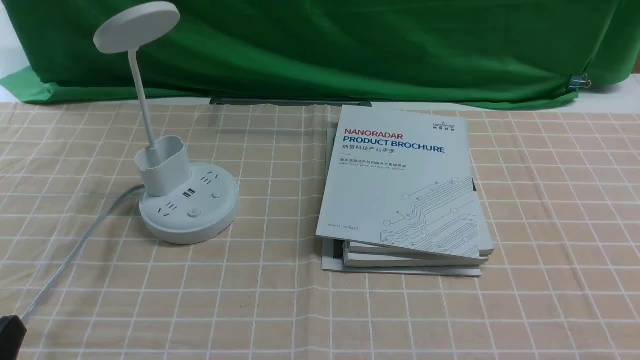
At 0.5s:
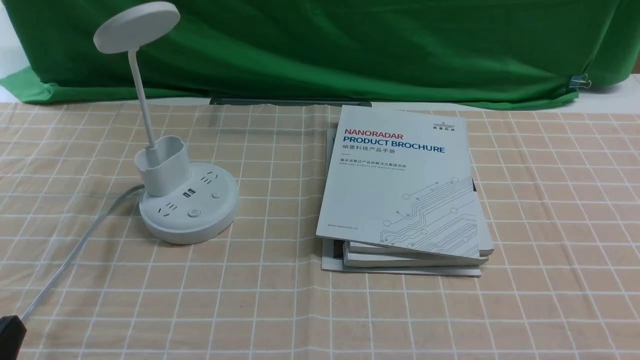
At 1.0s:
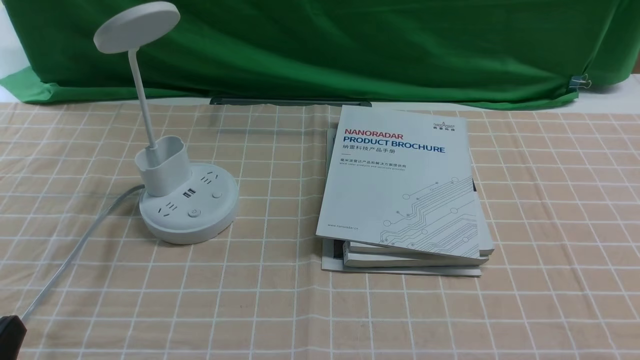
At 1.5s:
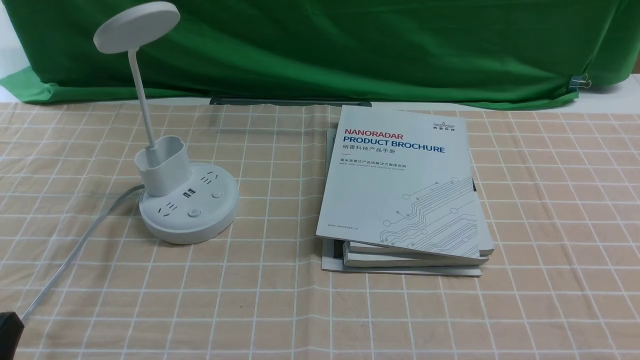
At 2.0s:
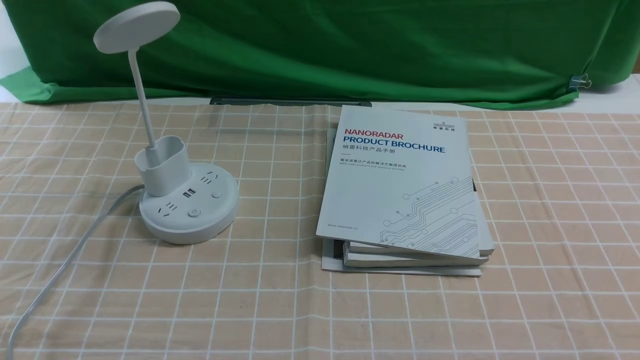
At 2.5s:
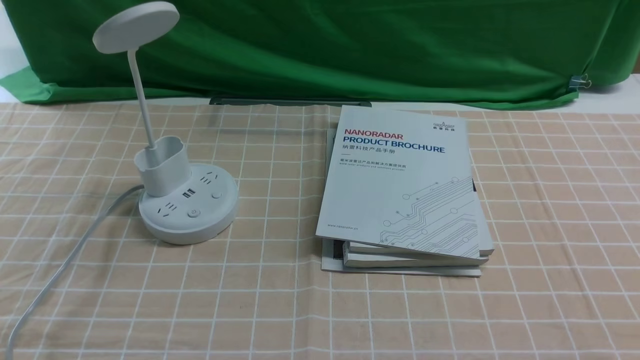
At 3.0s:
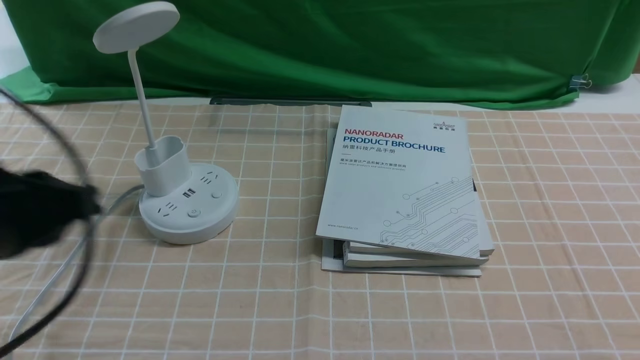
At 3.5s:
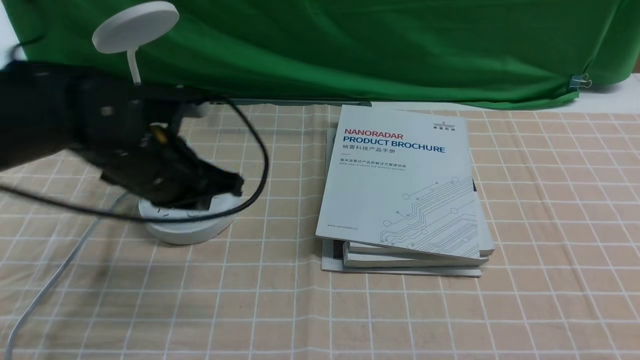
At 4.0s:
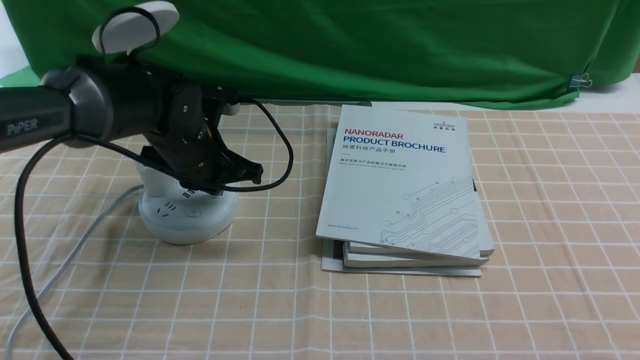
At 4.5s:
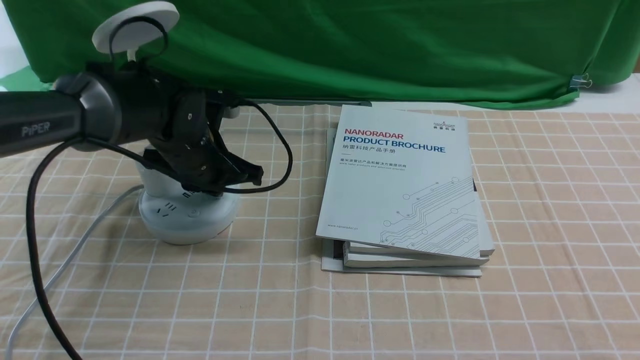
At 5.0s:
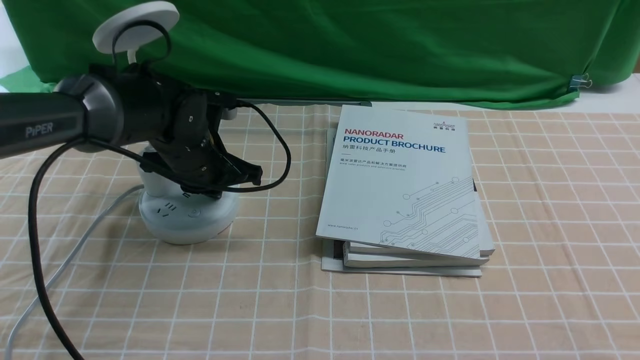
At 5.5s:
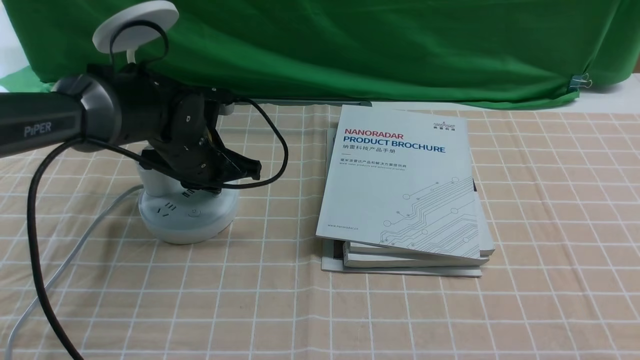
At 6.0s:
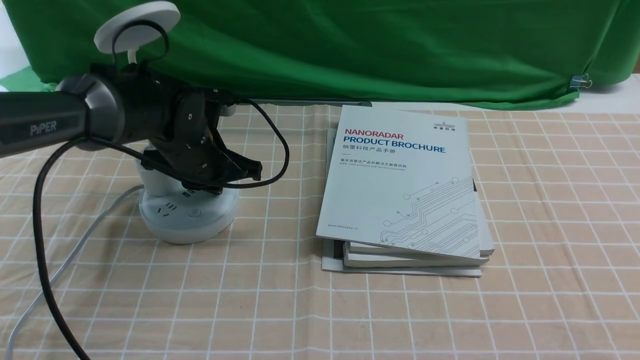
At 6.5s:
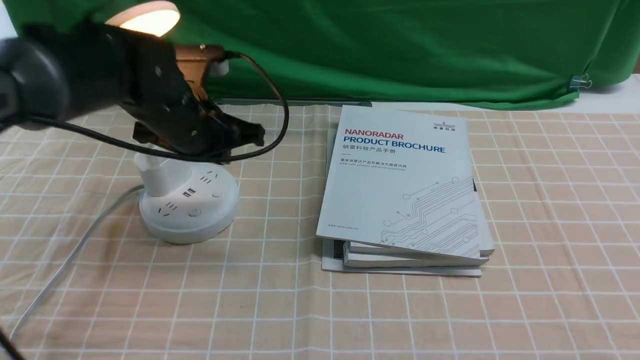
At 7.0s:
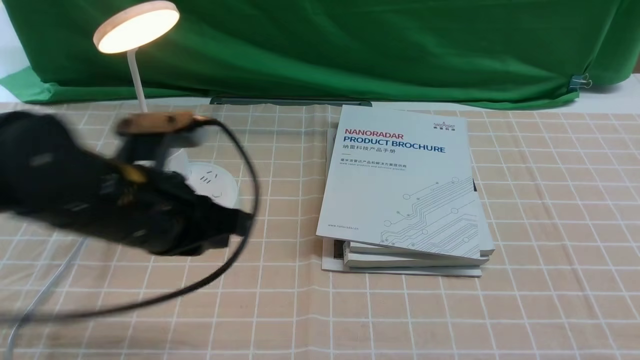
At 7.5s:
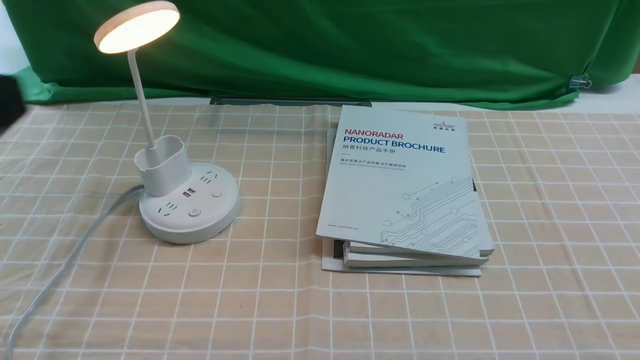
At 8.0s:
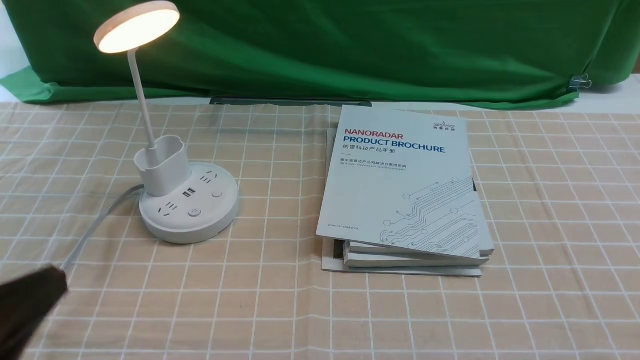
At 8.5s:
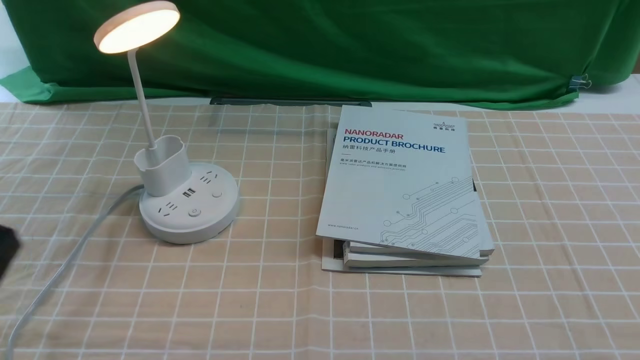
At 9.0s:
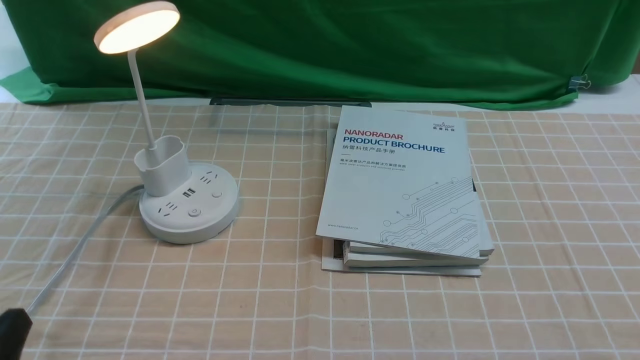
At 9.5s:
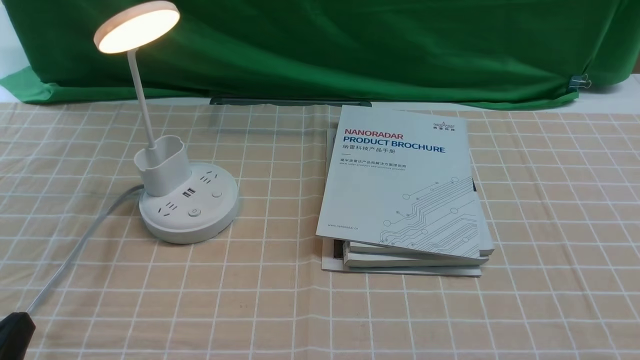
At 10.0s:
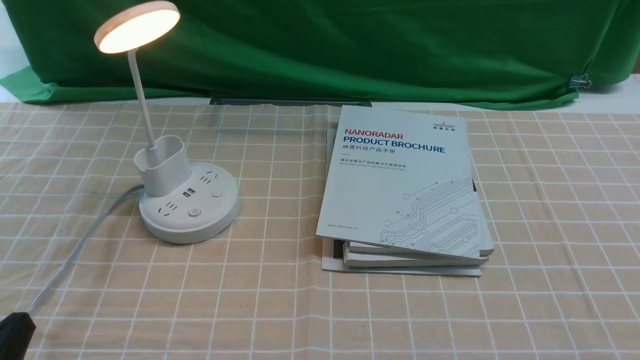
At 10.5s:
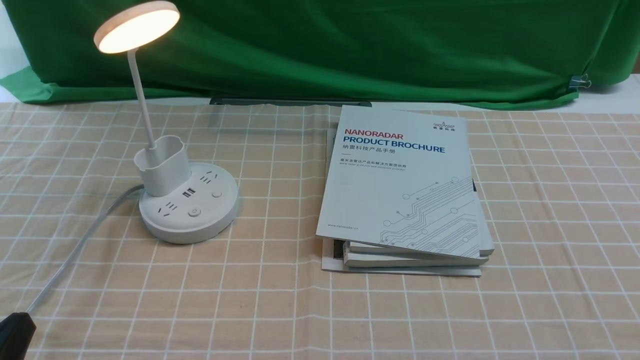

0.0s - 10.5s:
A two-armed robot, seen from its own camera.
Step, 0.0s - 6.5s: use the left arm to press the button switch on the lamp holder.
2.0s - 4.0s: The left gripper travels forward by about 35 cm, and closes up.
4.0s - 6.5s: There are only small adjustments of the grippers.
6.5s - 8.5s: The left gripper is displaced backward by about 30 cm, and opens.
8.5s - 10.5s: The left gripper is displaced downward by about 5 cm.

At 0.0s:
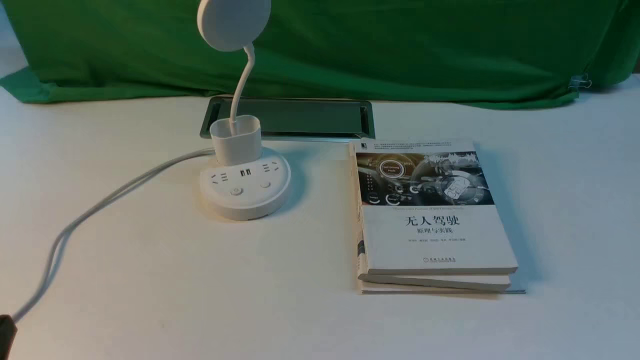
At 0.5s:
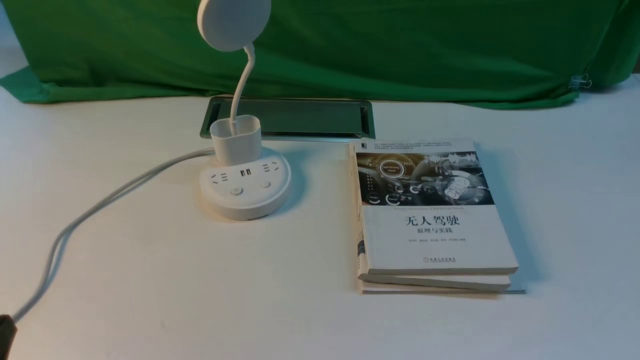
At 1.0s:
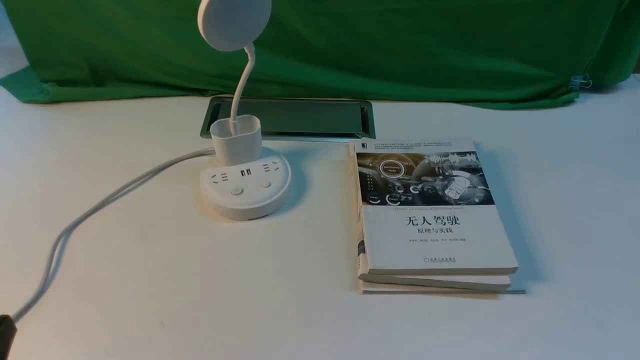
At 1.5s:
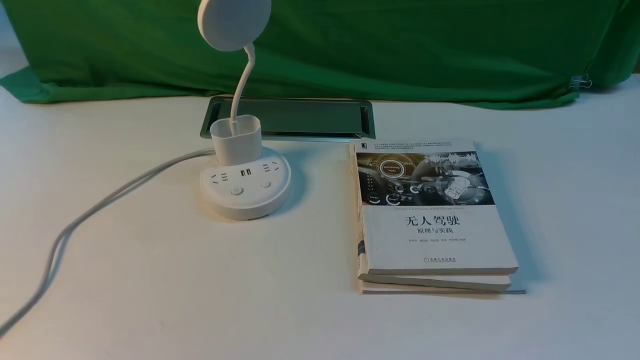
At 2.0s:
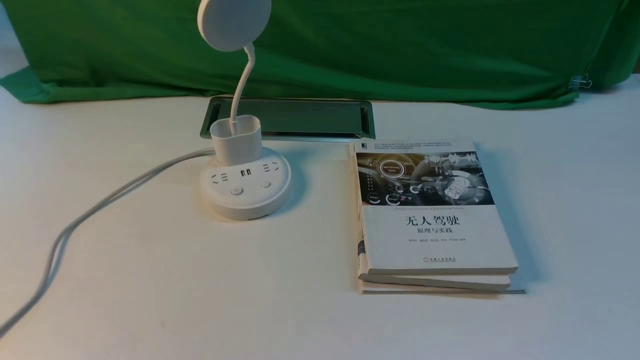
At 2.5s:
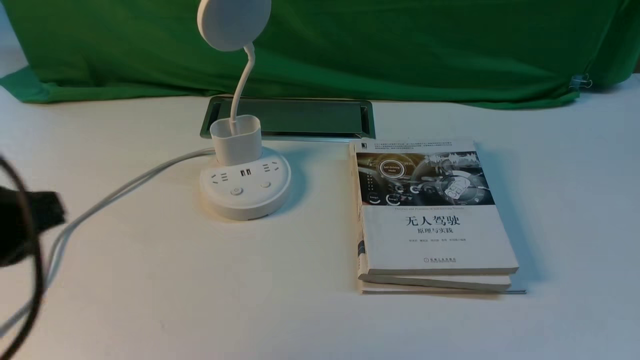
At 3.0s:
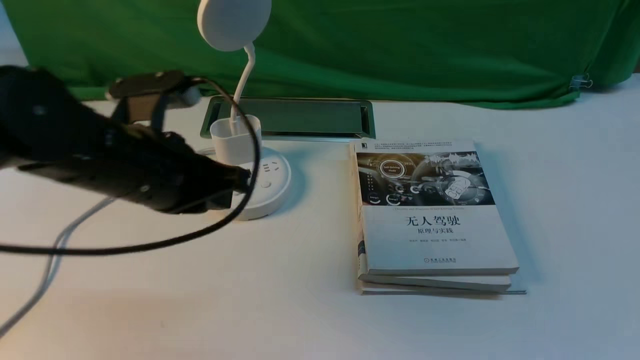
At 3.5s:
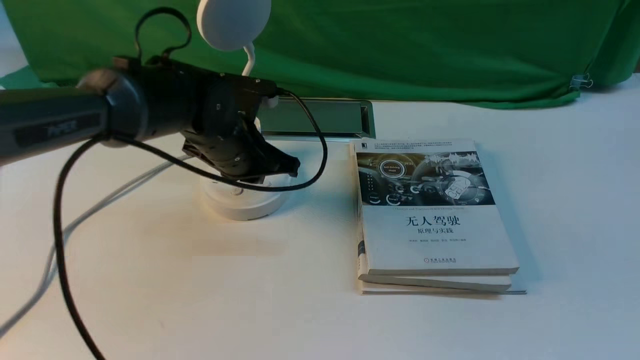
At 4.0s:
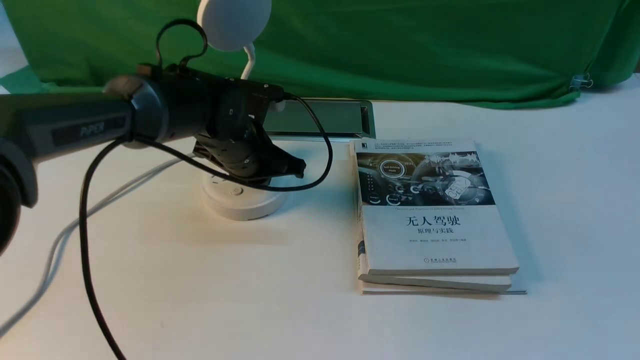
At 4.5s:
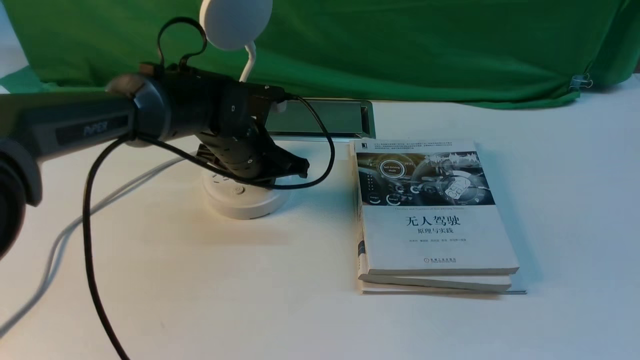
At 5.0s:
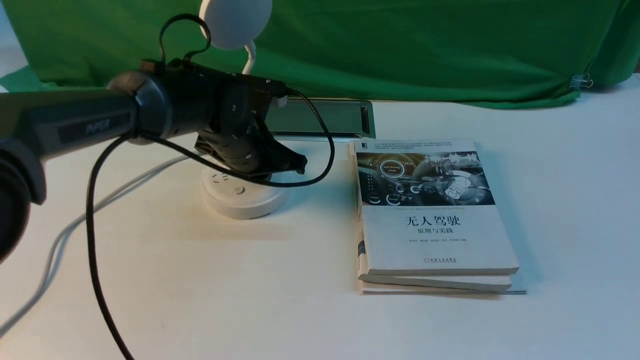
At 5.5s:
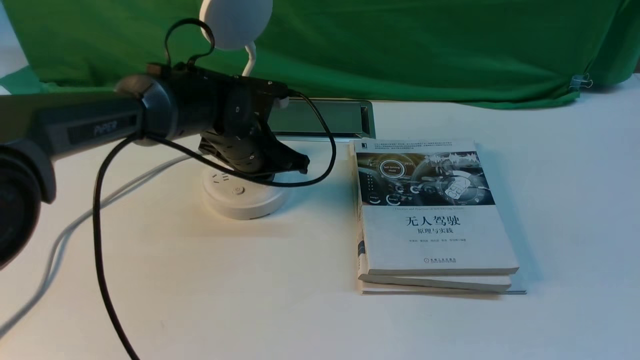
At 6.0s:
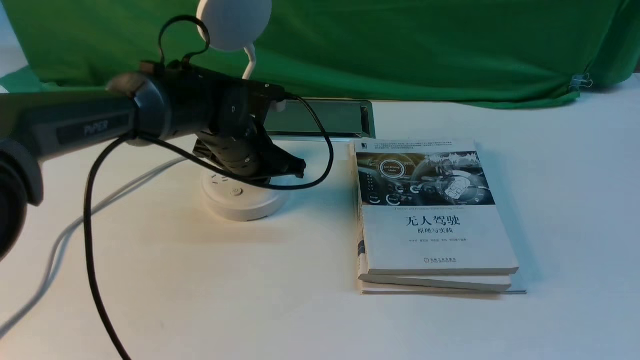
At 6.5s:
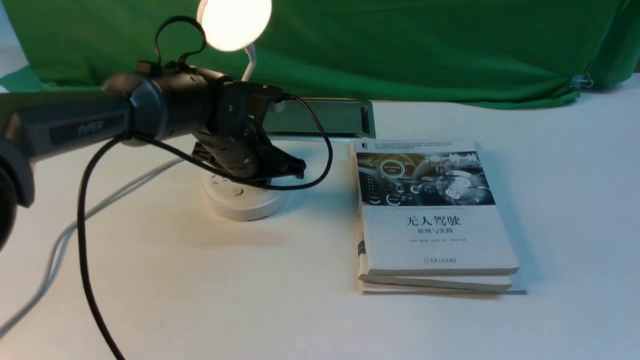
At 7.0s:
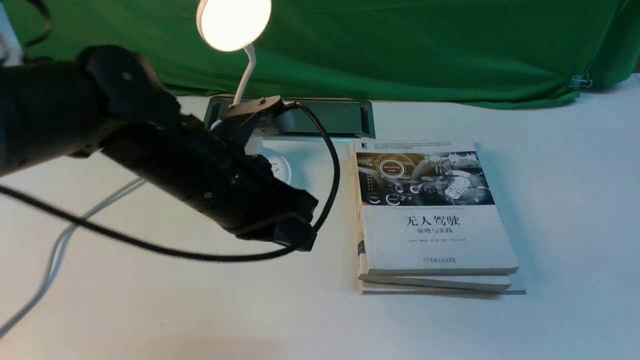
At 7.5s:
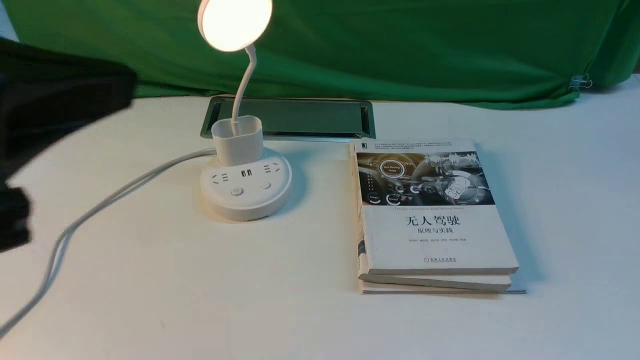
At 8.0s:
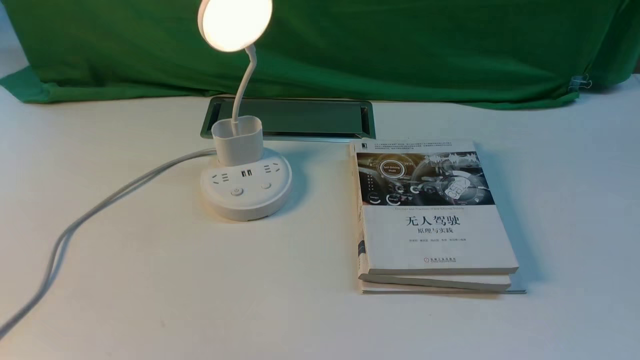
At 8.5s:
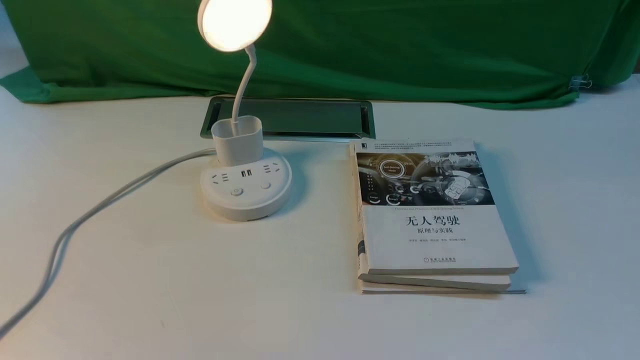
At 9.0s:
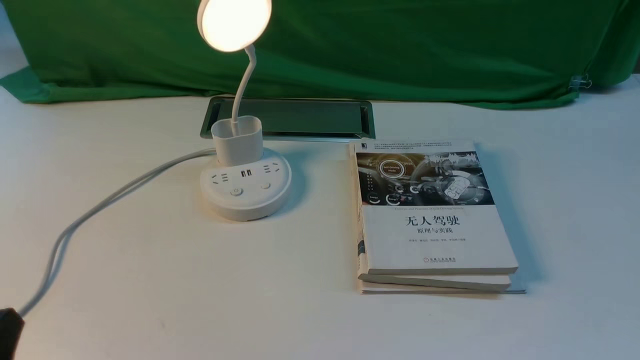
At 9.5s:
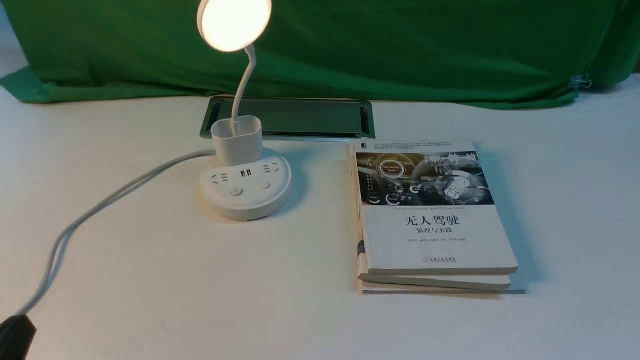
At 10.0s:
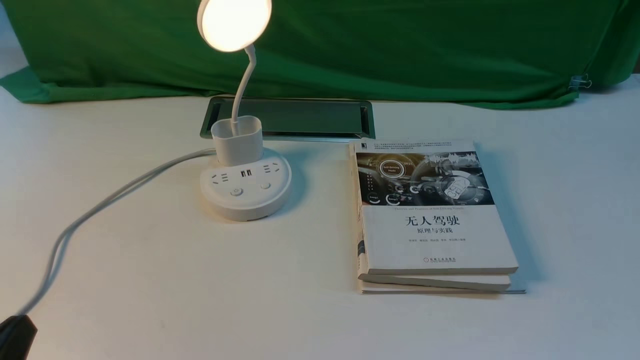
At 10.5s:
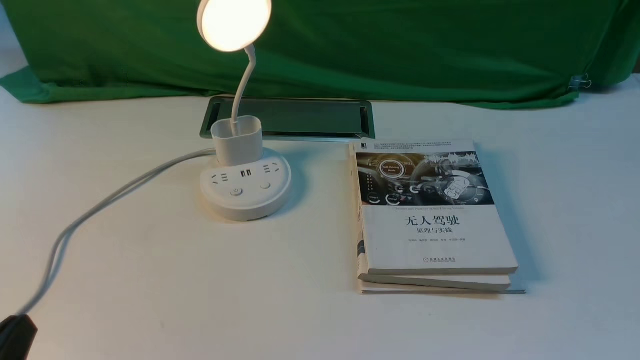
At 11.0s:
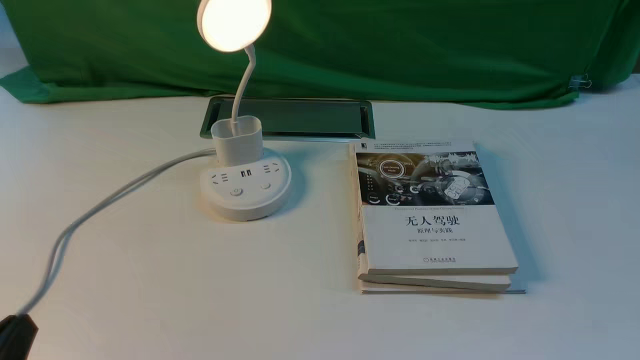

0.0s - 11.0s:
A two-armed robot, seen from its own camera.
Step, 0.0s - 7.0s: use the left arm to press the button switch on the lamp holder.
2.0s - 3.5s: The left gripper heads forward and to the right, covering about 40 cm.
3.5s - 5.5s: The left gripper moves approximately 5 cm.
5.5s - 7.5s: The left gripper is displaced backward and upward by approximately 35 cm.
7.5s - 9.0s: The left gripper shifts roughly 25 cm downward, to the left and backward.
